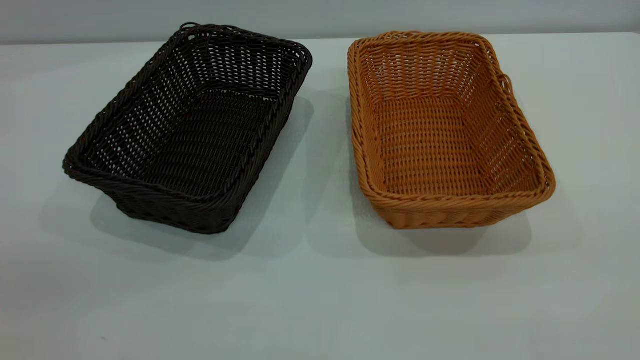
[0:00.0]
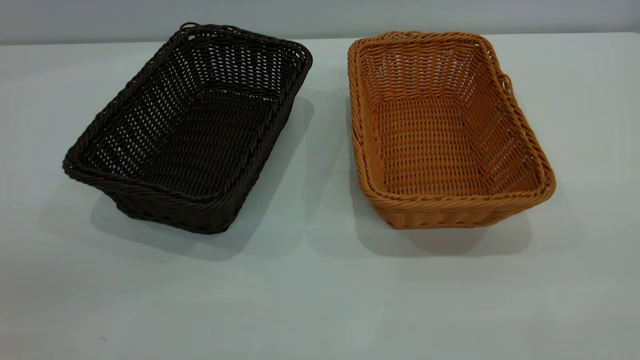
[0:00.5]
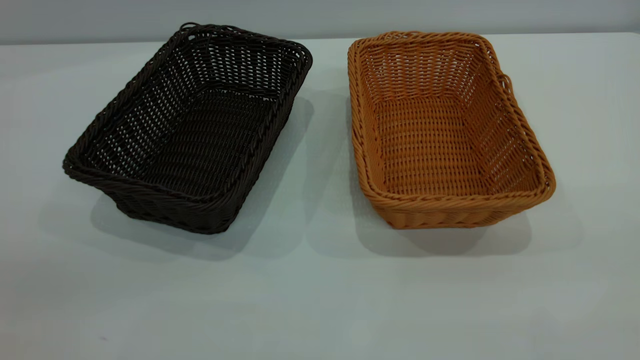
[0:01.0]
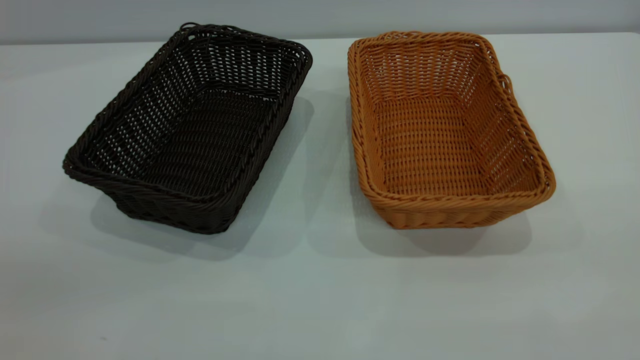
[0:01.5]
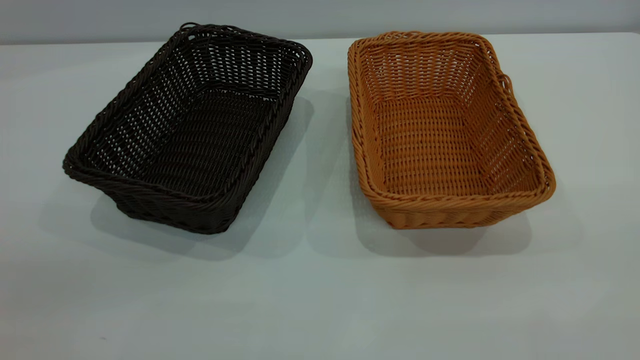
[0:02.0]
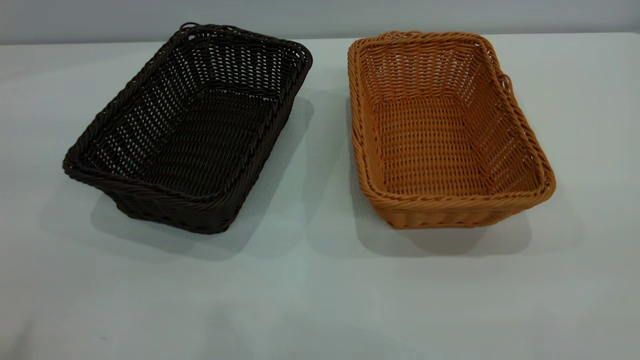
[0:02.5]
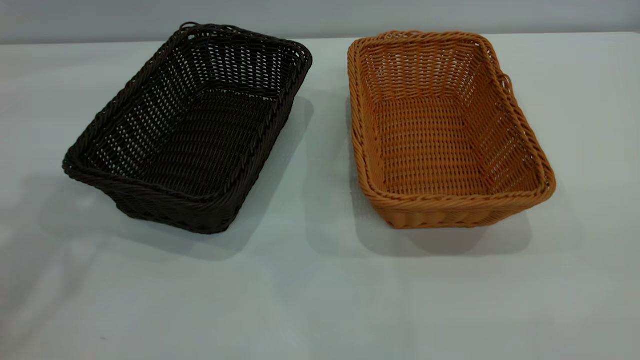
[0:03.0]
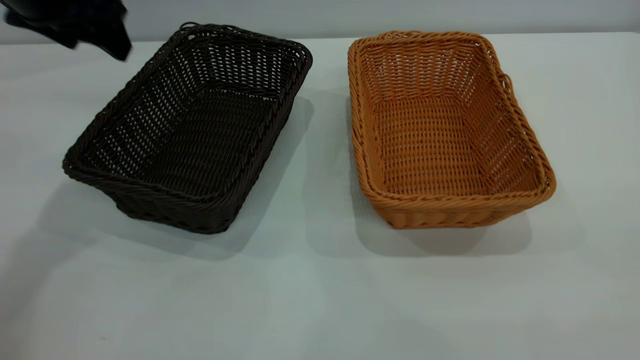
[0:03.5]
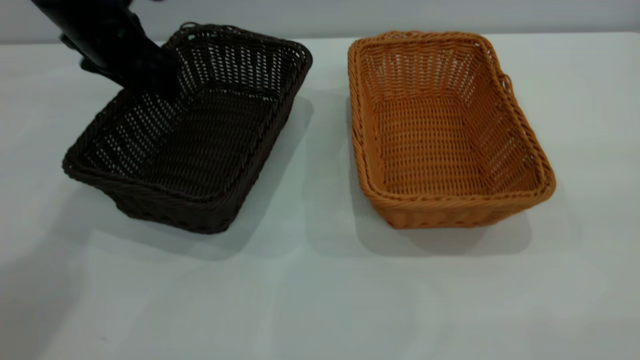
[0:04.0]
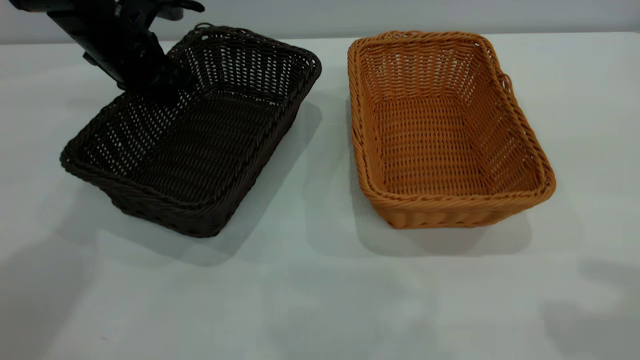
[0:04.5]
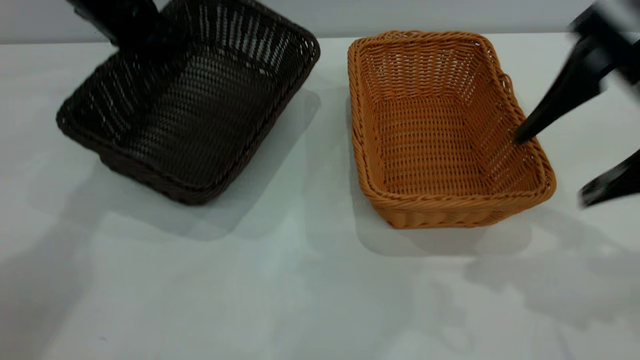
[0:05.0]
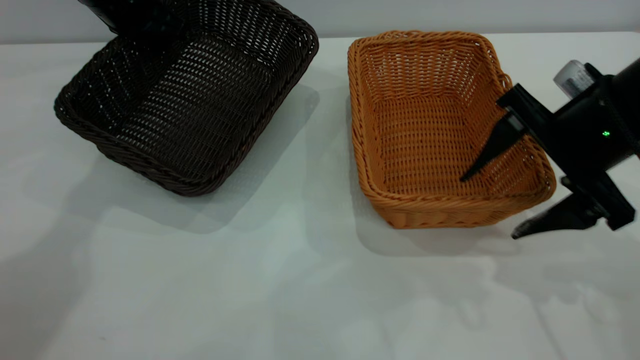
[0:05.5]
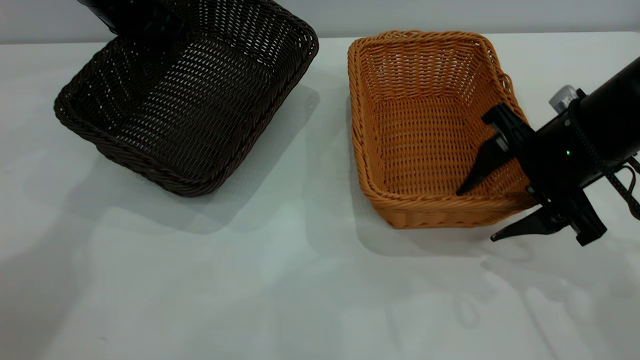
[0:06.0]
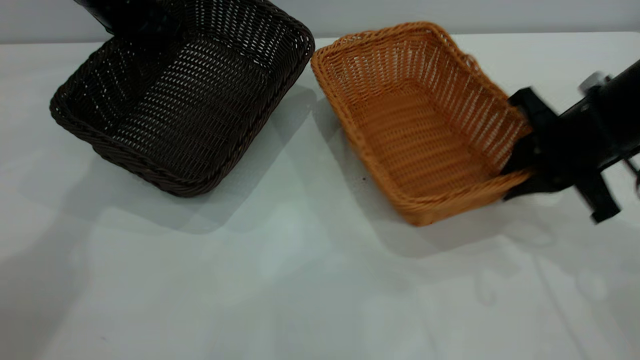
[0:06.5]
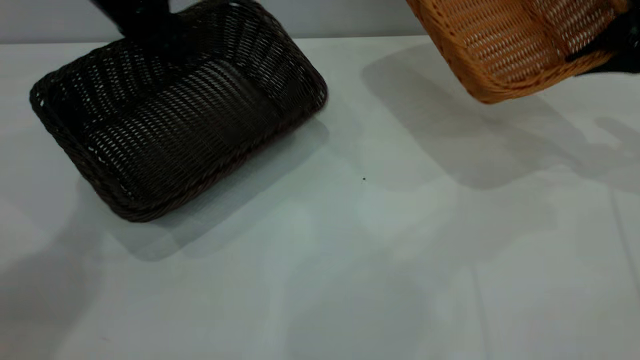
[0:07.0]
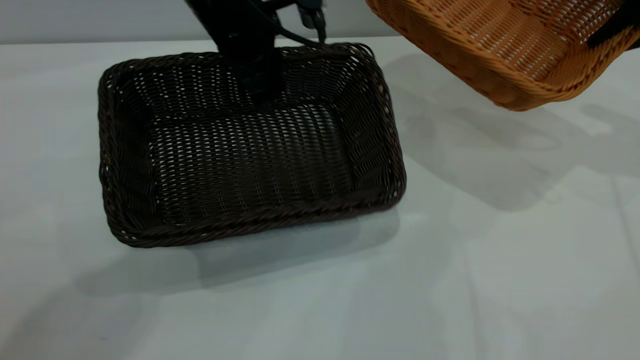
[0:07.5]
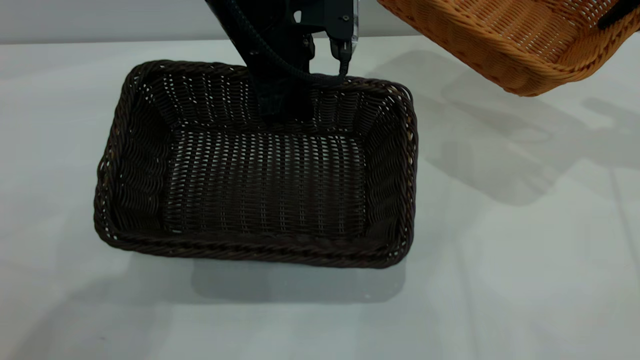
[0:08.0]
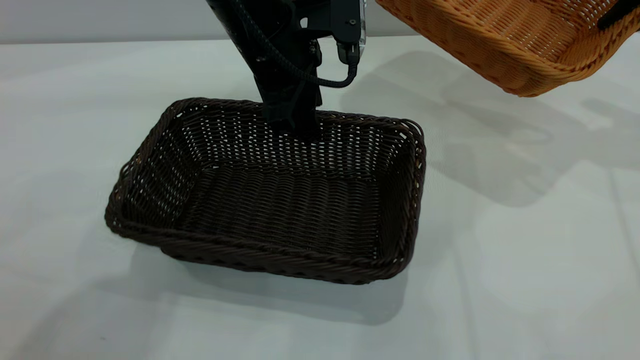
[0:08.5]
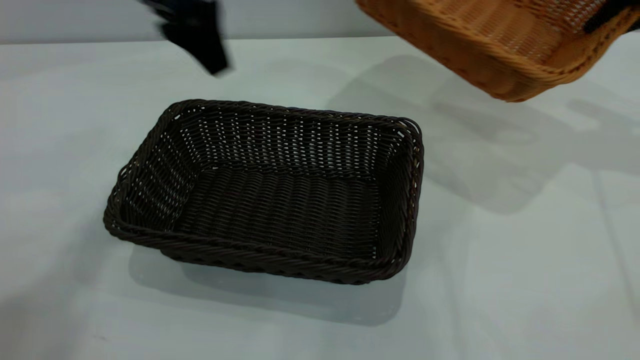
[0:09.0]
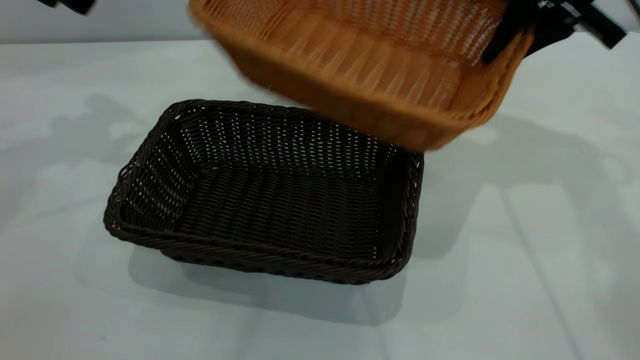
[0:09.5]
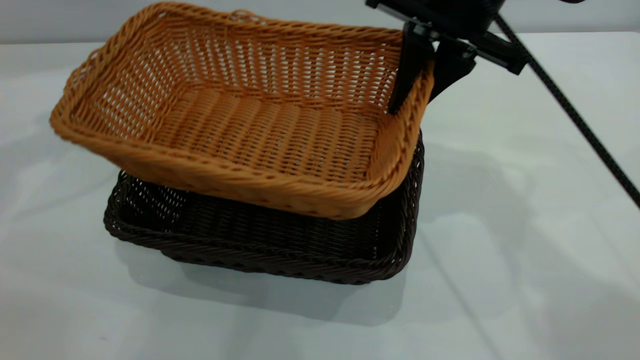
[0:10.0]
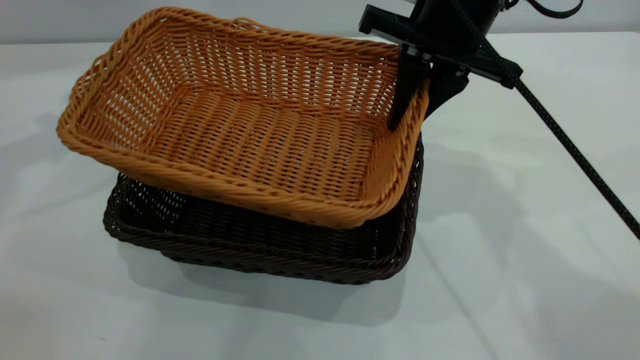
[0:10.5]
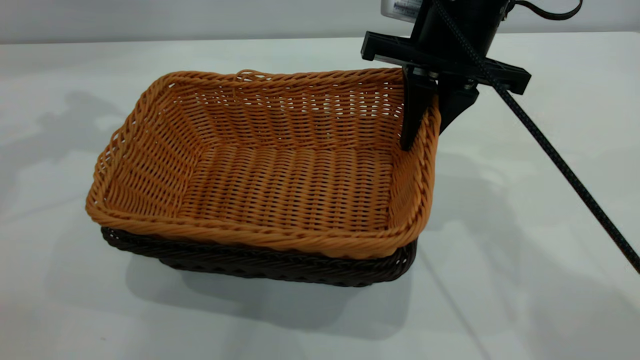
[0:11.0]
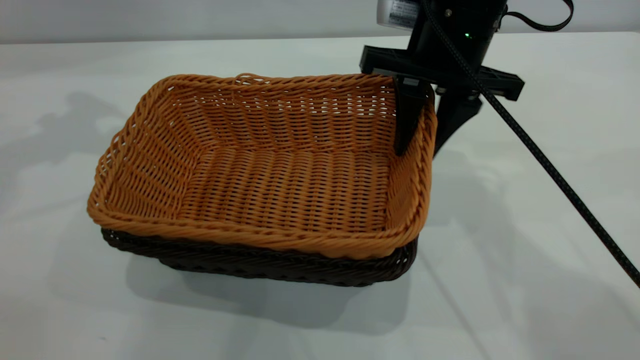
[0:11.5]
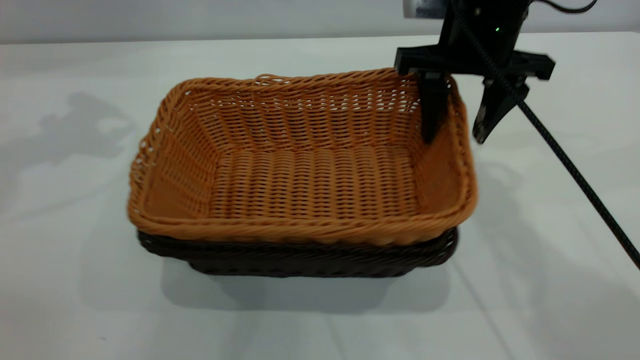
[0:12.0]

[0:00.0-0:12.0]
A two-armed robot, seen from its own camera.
Task of the whole recording: the left gripper grasp the black basket and place it in the center of the table, the right gripper grasp the brown basket and place it inside the black one.
Step, 0:00.0 to 0:06.5: Pick up the light basket with the right gripper.
Step, 0:07.0 to 0:08.5: Move the dark basket to the center of view.
0:02.0 to 0:04.0: The left gripper is displaced forward and downward by approximately 50 cm.
0:04.0 to 0:06.0: The right gripper is displaced downward and forward by roughly 35 cm. The left gripper closes its fingers.
0:06.0 to 0:08.0: The left gripper goes about 20 cm to the right and backward; the right gripper shifts some 25 cm to the right, forward and upward, and closes up.
0:08.0 to 0:10.0: Both grippers move to the left, about 25 cm. The left gripper opens its fingers.
0:10.0 to 0:12.0: The right gripper opens up.

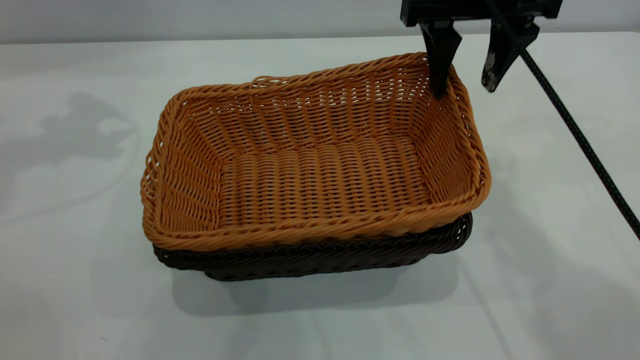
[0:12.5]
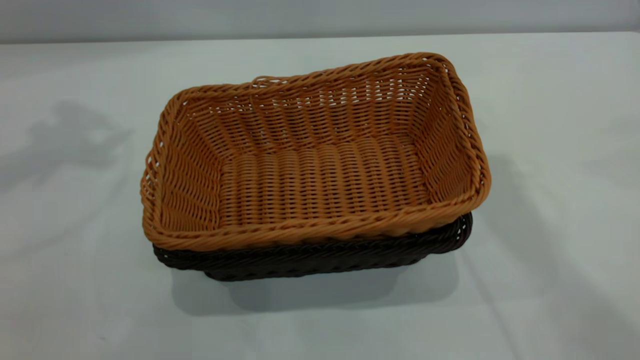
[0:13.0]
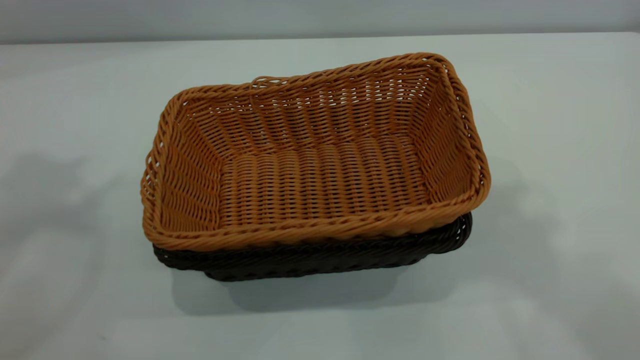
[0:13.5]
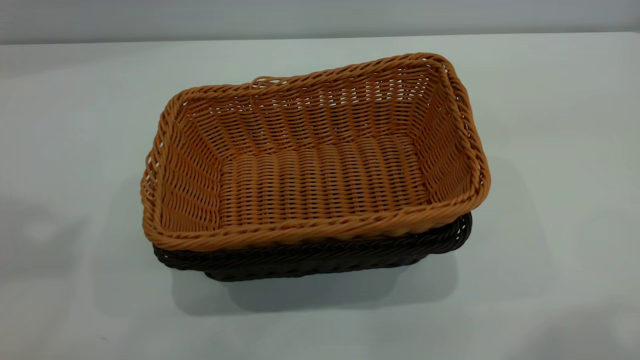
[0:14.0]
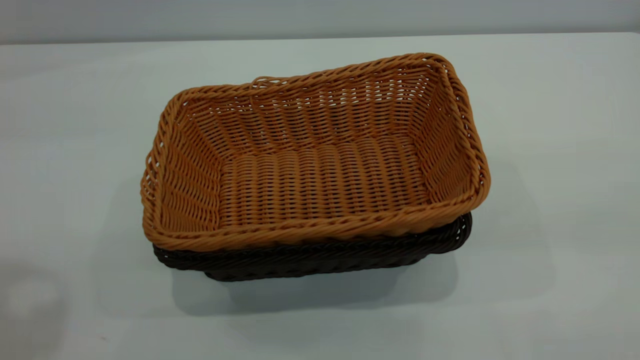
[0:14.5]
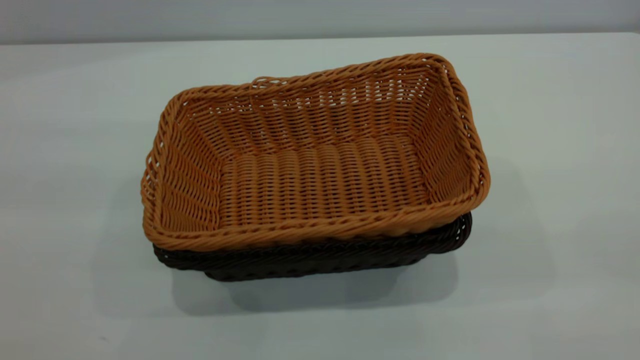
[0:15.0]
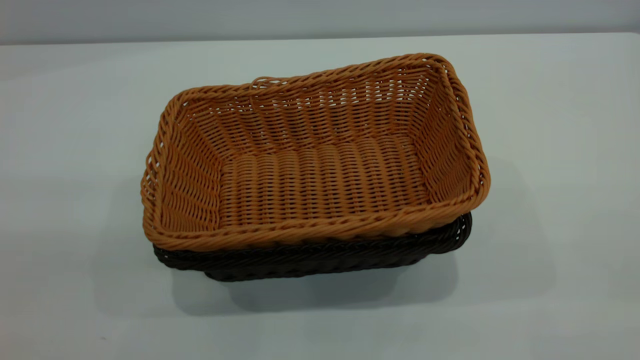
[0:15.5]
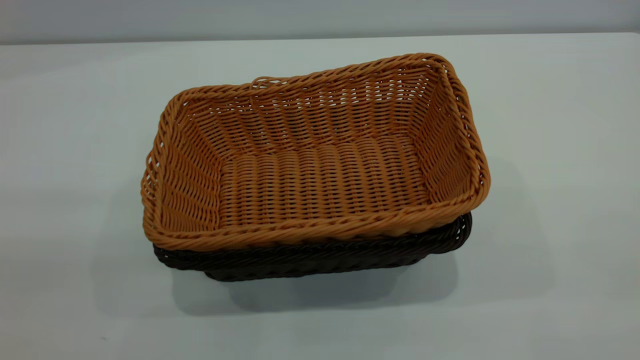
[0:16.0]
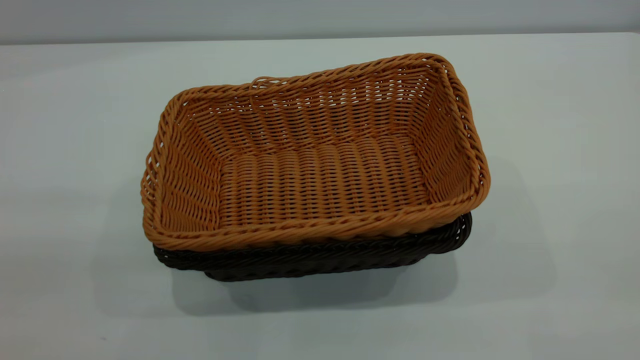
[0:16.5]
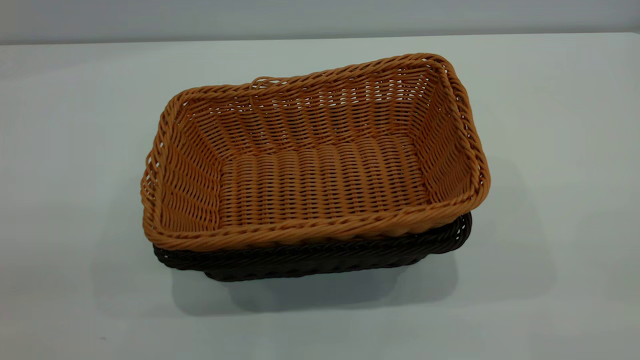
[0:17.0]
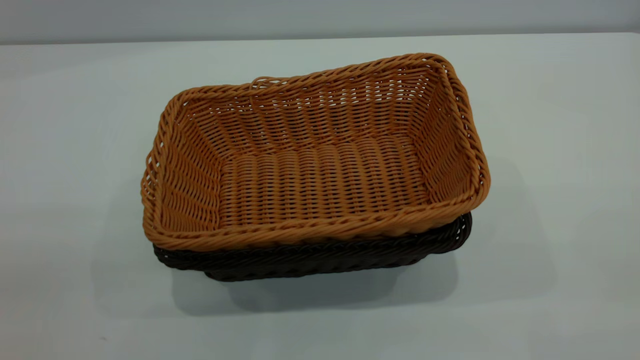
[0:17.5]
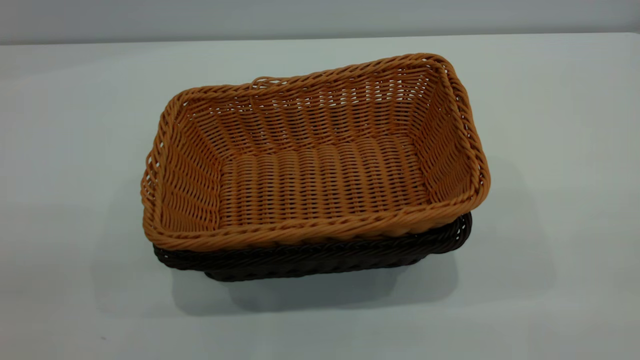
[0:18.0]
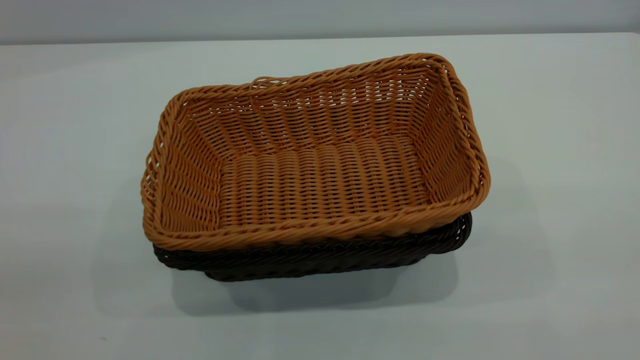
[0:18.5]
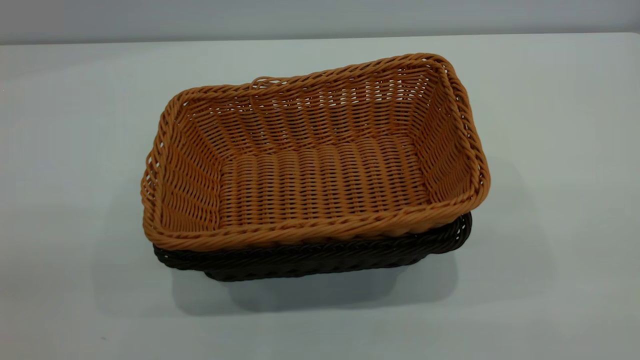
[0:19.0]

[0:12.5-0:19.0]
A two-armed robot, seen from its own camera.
Task of the whole recording: the left gripper grasp the black basket and place it in the center of the table, the right gripper grasp the brown basket and place it inside the black one.
0:12.5 to 0:14.5: The right gripper heads backward, covering roughly 35 cm, while the left gripper shifts approximately 30 cm backward and upward.

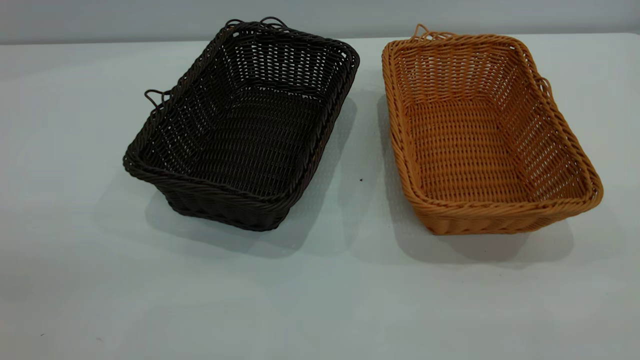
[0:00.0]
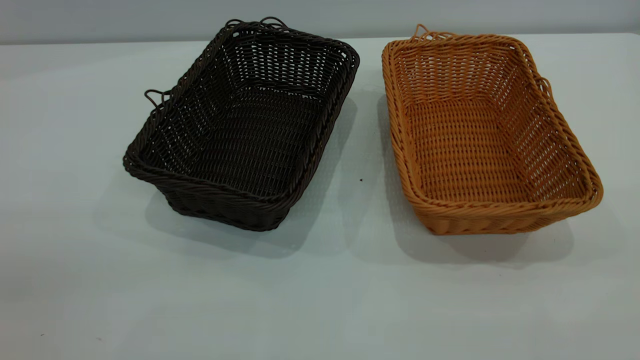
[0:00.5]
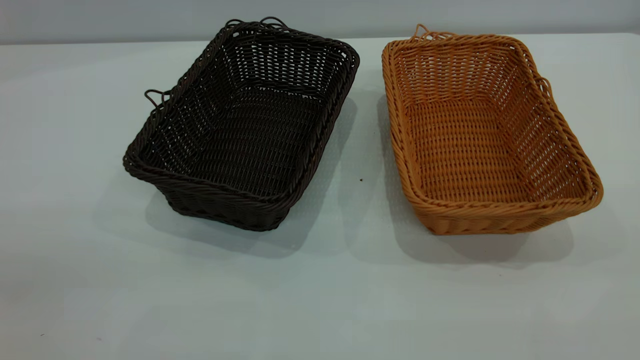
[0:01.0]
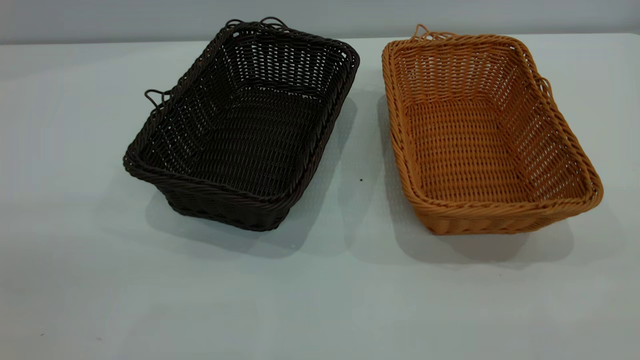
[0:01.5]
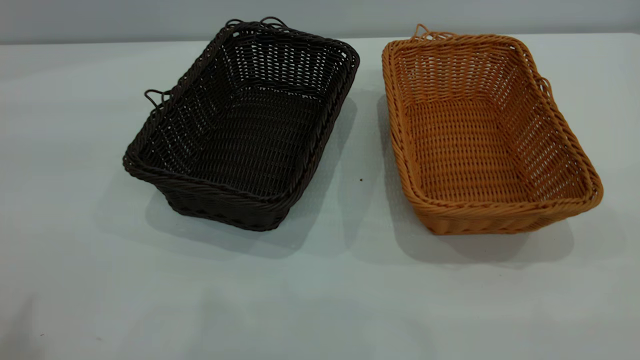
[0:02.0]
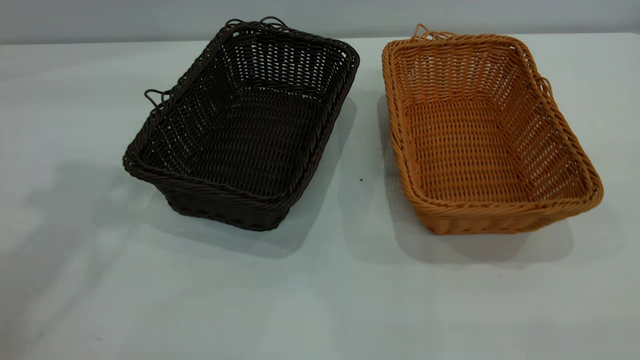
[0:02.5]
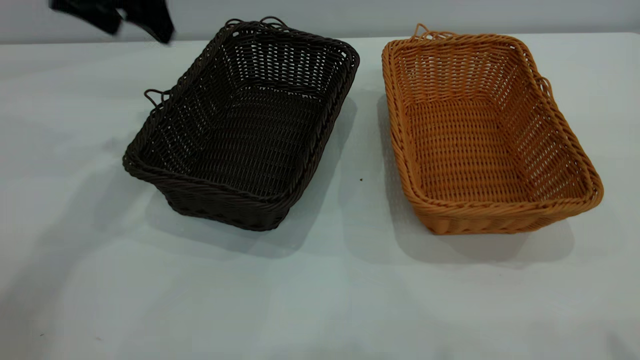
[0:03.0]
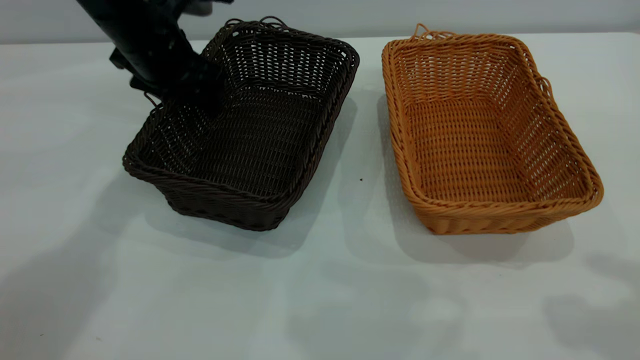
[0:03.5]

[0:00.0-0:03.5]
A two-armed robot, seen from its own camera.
Task of the whole recording: the left gripper grasp the black basket and place it in the center of the table, the right gripper grasp the brown basket and place it inside the black one.
0:02.0 to 0:03.5: The left gripper is displaced forward and downward by approximately 40 cm.
